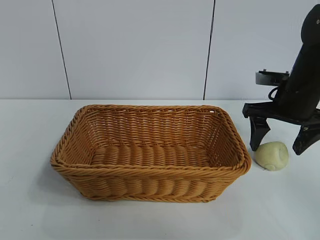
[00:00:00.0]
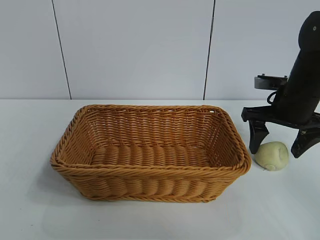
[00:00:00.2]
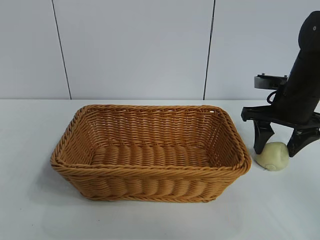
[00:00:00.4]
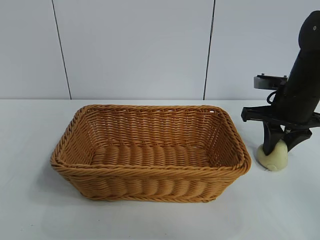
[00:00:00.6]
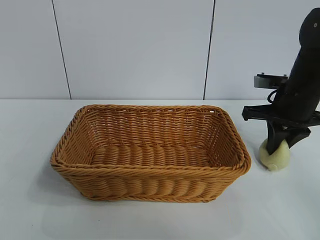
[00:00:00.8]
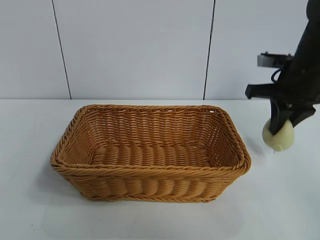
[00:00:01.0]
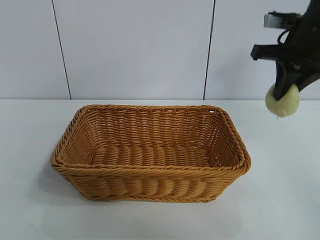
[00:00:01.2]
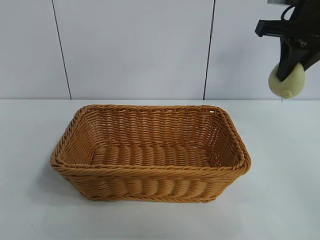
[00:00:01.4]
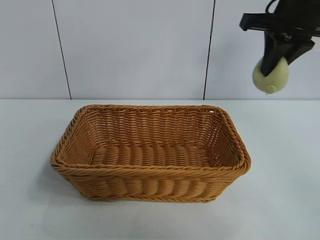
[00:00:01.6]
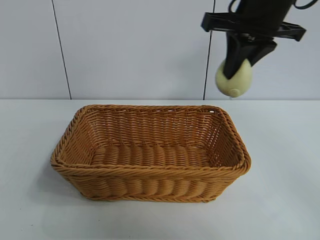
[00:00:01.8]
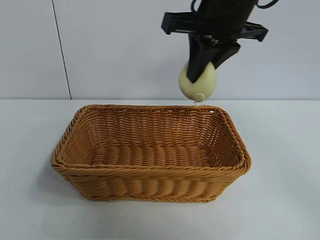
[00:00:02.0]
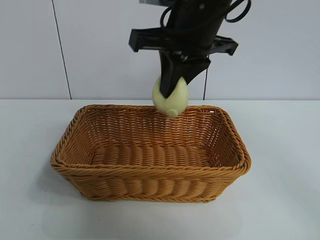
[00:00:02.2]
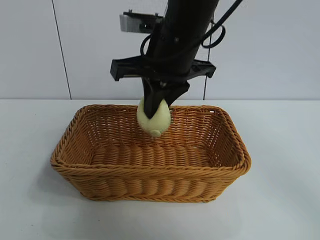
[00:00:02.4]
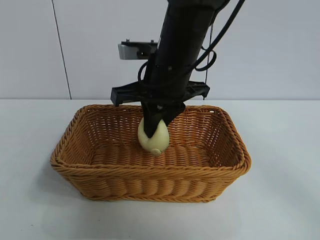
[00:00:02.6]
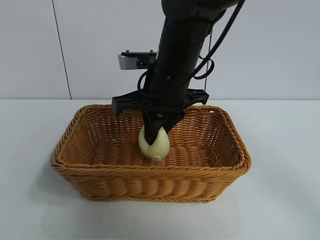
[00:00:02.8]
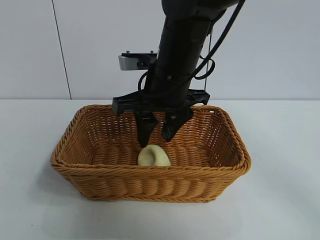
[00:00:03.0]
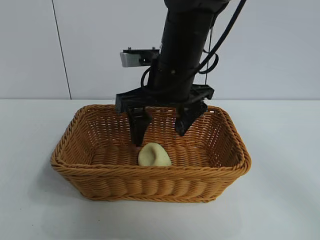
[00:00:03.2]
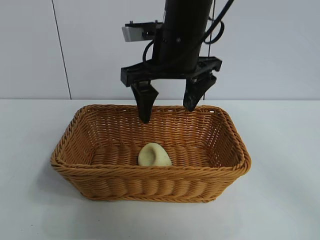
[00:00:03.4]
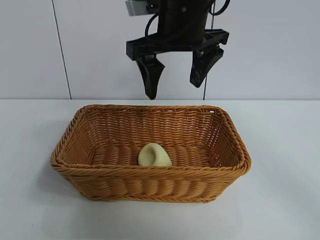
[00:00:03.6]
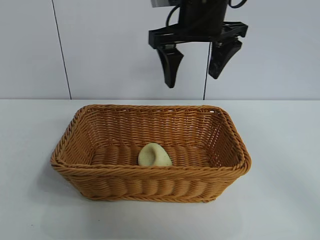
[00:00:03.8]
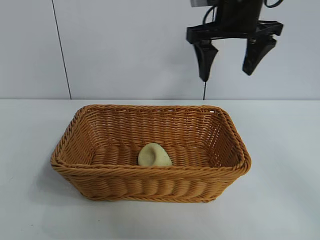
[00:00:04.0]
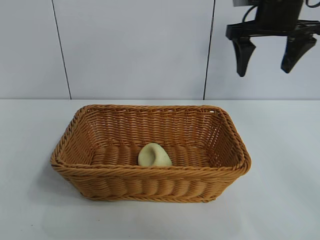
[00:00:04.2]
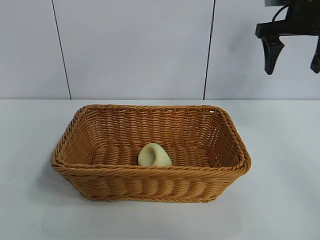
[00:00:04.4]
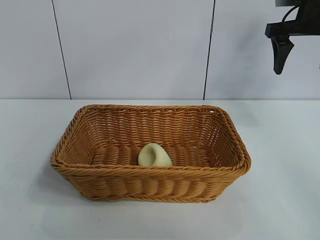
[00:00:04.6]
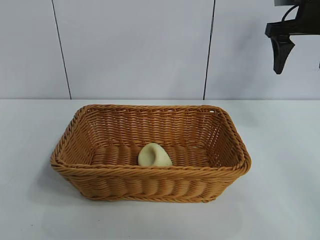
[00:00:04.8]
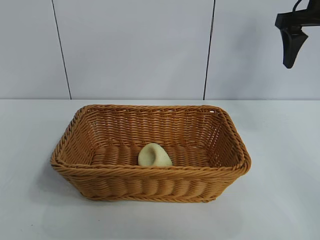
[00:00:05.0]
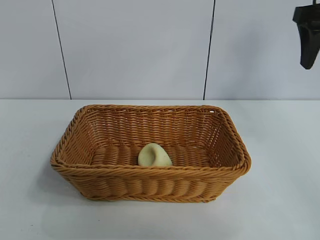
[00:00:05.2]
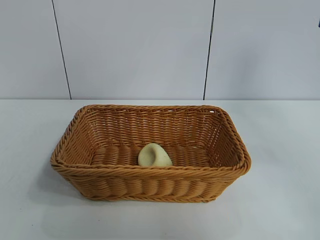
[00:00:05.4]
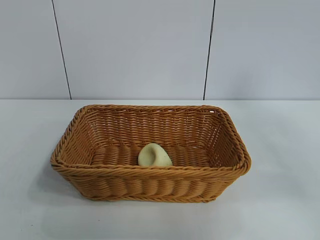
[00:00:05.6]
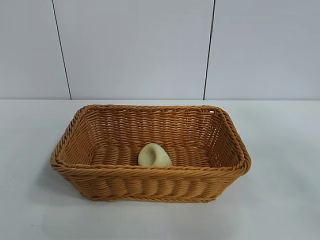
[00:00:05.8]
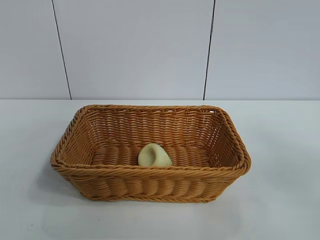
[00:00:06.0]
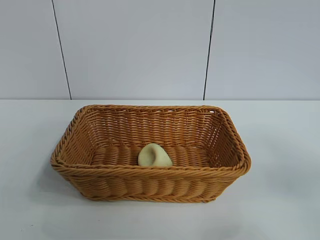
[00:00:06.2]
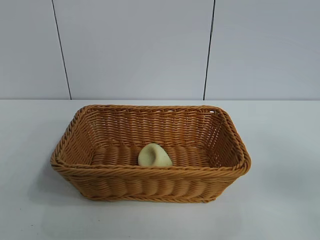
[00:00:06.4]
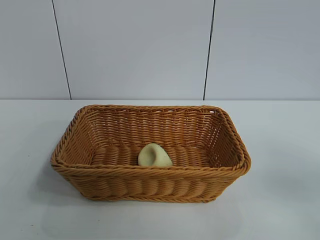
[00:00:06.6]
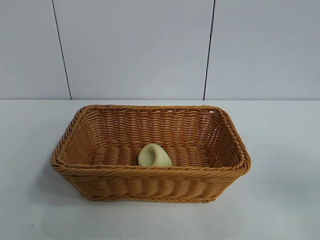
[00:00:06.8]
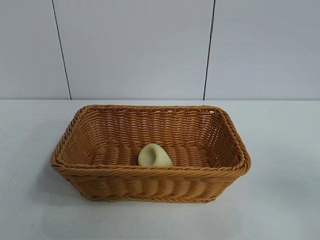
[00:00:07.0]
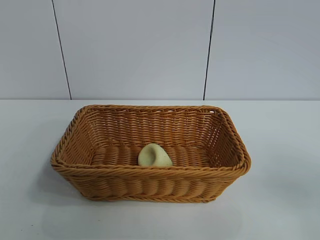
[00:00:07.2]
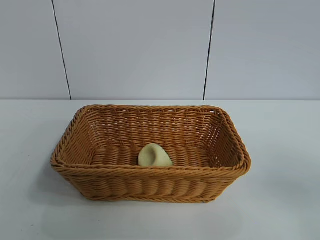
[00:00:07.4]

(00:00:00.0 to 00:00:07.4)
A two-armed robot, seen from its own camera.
Task of the whole recording: pick up the egg yolk pastry and put it into the basket.
Step, 00:00:00.6 - 00:00:03.0: Place the egg yolk pastry in the basket with right gripper.
